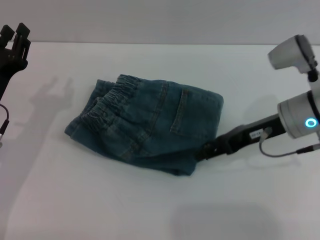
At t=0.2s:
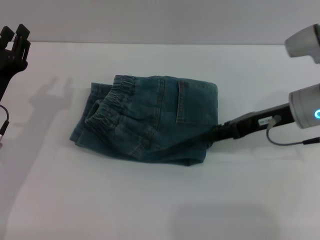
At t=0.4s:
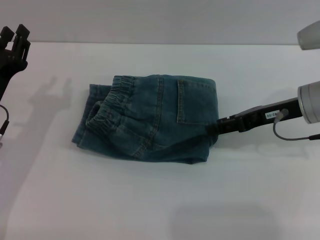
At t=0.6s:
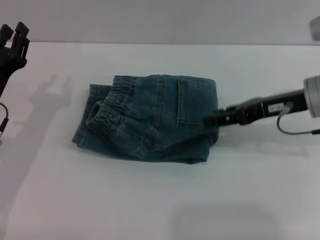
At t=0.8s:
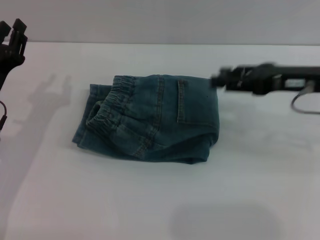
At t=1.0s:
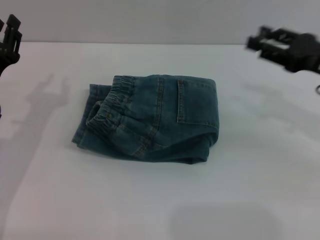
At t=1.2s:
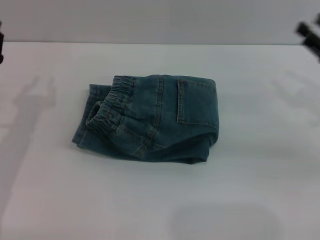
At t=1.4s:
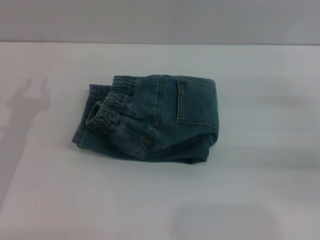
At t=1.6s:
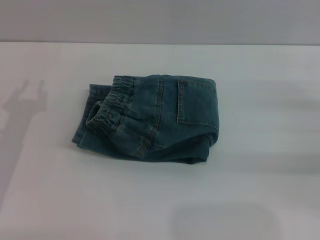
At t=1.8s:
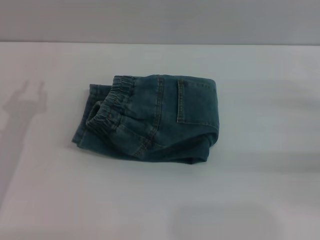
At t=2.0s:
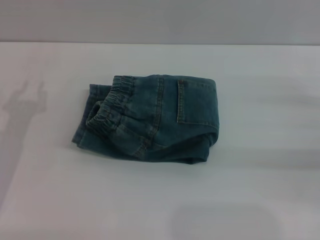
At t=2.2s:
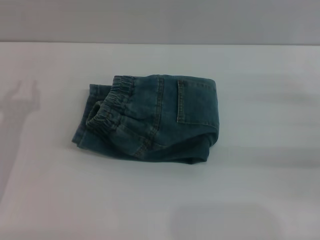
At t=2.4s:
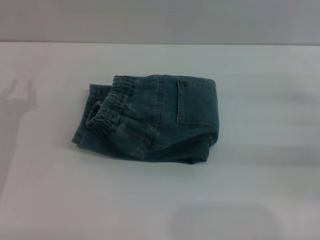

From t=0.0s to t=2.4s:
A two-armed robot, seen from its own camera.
From t=0.0s to t=1.2s: The right gripper shifts some 10 cm to the right.

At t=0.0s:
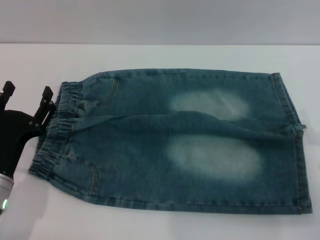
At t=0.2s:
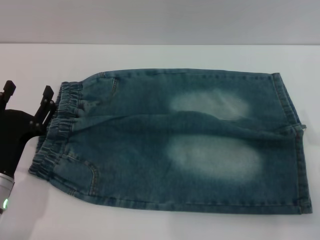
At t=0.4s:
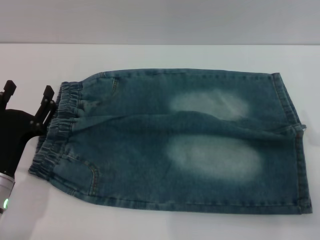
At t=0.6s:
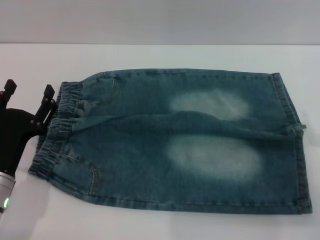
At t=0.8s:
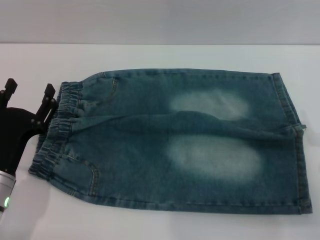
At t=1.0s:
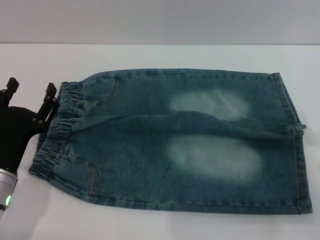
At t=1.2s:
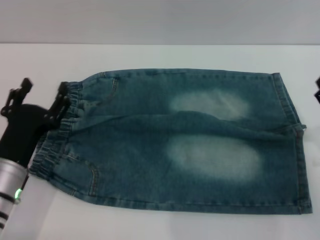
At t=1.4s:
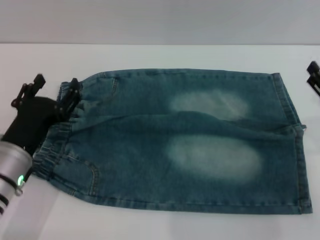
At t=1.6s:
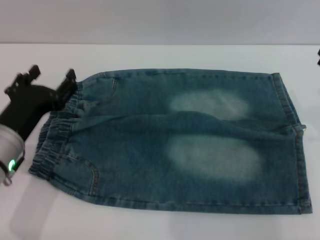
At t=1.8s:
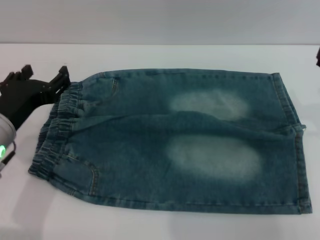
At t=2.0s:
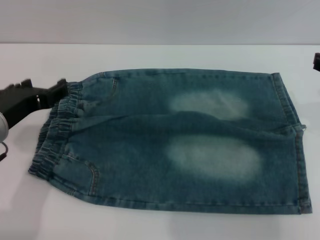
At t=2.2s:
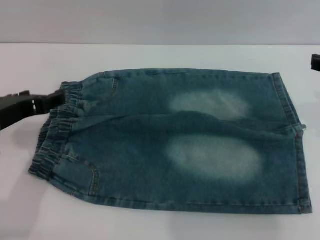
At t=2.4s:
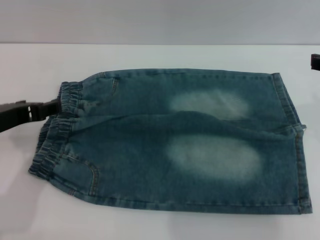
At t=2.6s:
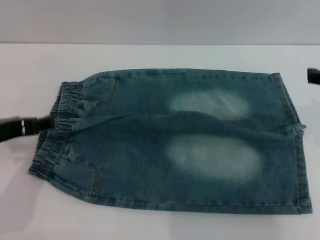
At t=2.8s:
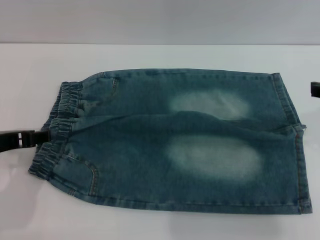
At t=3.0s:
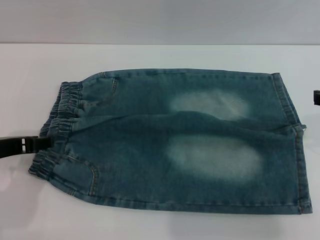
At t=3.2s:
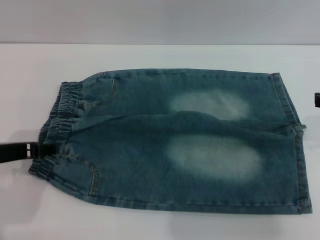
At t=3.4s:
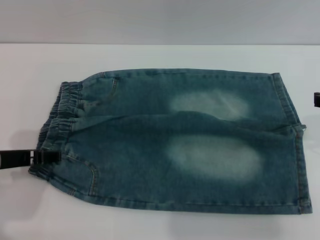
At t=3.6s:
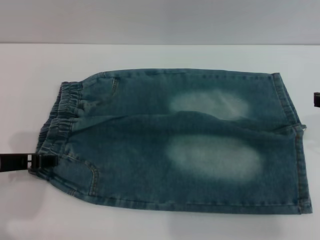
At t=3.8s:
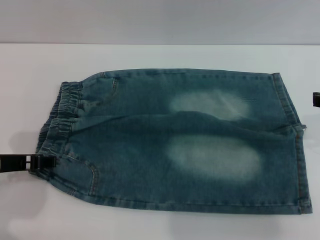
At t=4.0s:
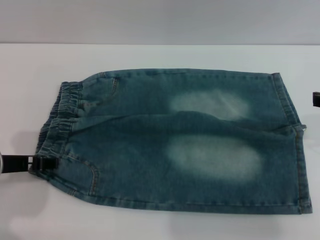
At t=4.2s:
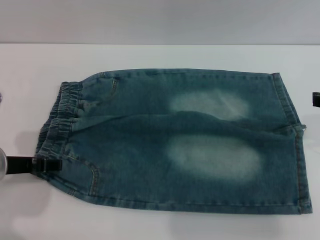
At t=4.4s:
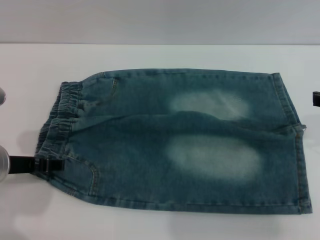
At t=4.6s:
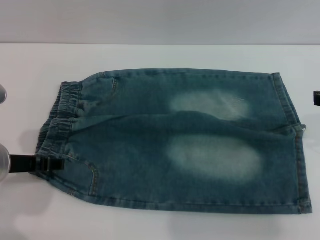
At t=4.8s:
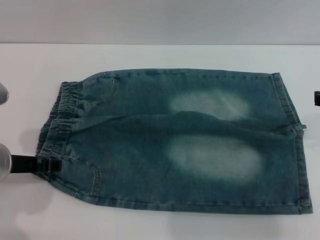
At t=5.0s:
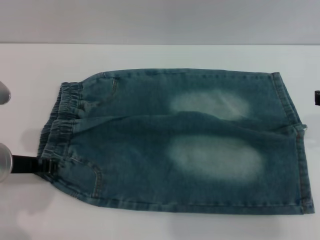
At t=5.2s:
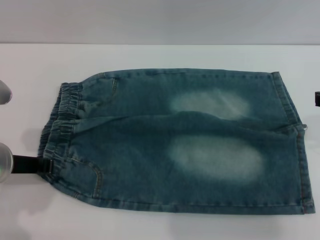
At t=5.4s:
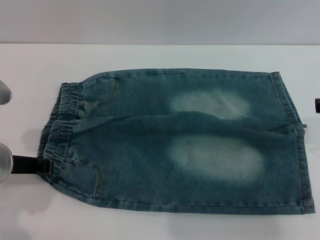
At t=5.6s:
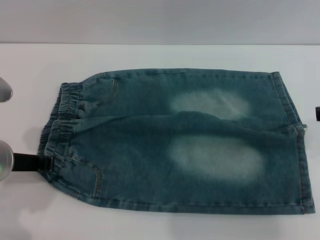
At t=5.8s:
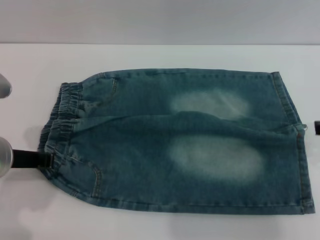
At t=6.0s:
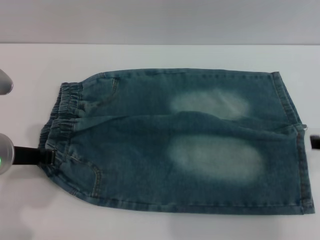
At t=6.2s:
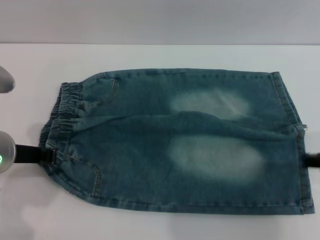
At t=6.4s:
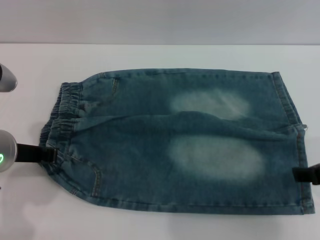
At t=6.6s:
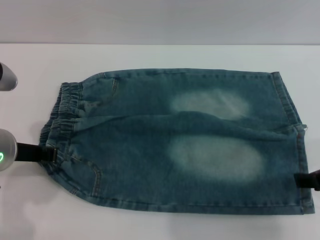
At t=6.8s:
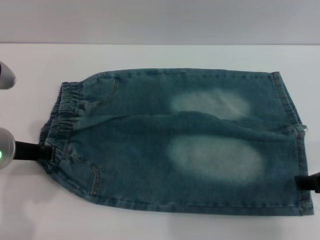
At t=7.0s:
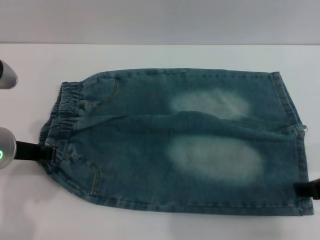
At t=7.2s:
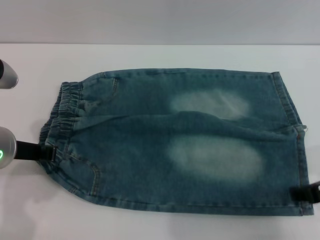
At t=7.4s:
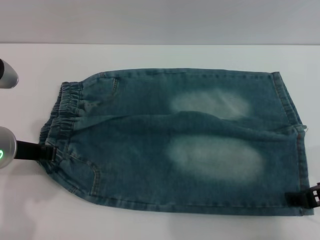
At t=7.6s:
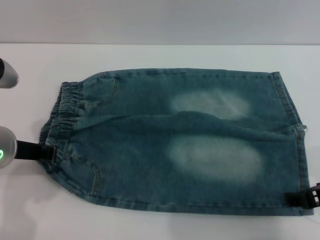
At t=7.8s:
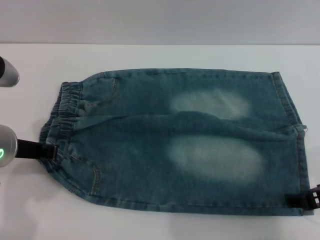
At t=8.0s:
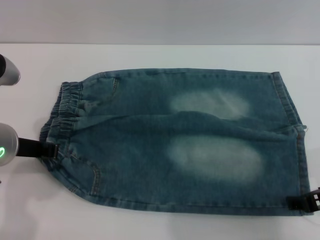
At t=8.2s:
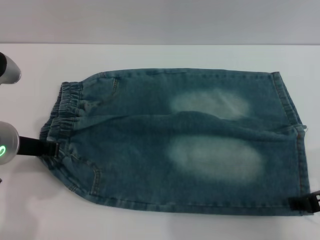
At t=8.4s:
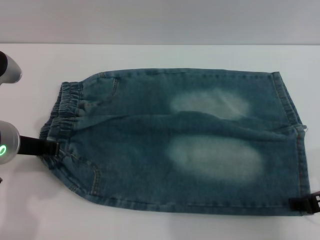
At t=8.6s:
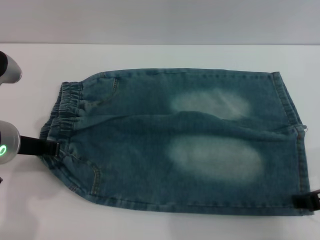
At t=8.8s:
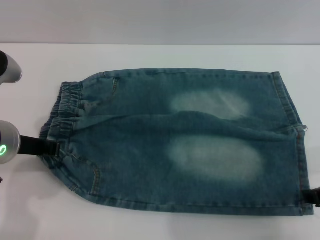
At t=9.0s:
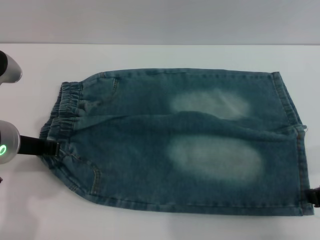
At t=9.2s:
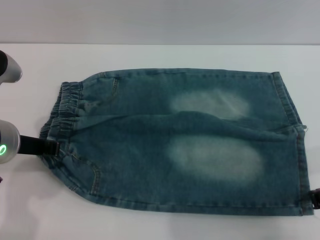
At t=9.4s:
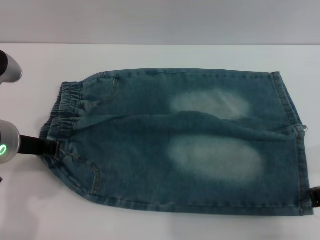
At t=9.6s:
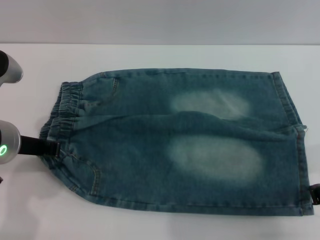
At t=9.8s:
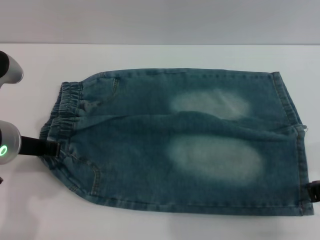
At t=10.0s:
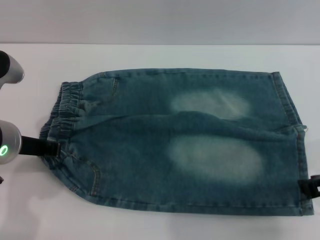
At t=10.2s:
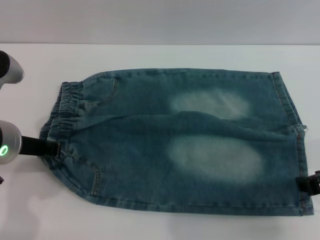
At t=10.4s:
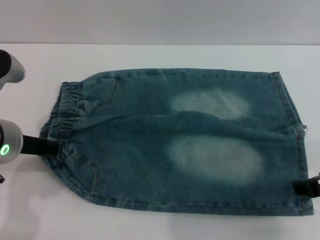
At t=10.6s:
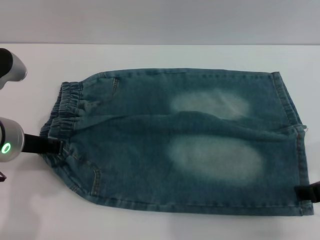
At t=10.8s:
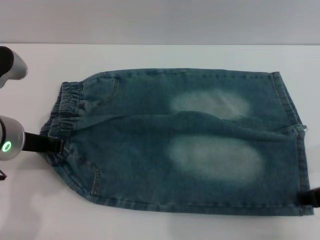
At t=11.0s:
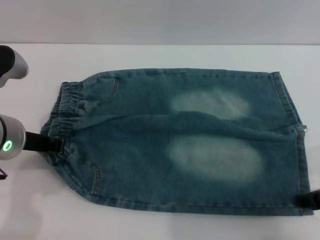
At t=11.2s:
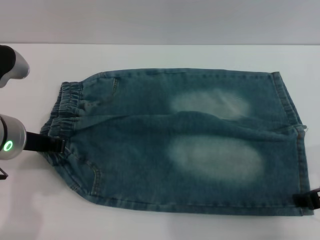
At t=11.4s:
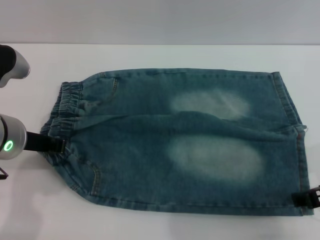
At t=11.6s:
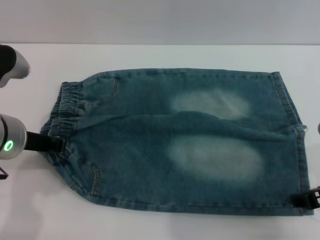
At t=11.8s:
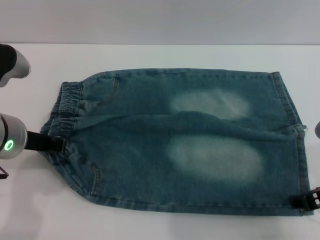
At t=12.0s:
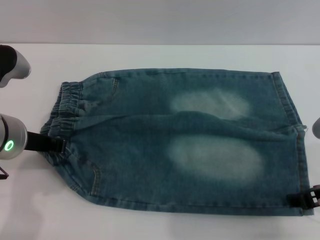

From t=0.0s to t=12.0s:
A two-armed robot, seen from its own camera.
From t=0.0s to t=1.6s: Both grippers travel together upward, approximately 10 cm.
From t=1.6s to t=3.0s: The left gripper is displaced upward by about 5 cm.
From t=3.0s to t=4.4s: The grippers make only small movements.
From t=4.4s to t=6.0s: The left gripper closes its fingers.
From t=6.0s to t=7.6s: The right gripper shifts by about 5 cm.
From t=7.6s to t=9.0s: The grippers make only small movements.
From t=10.4s to t=12.0s: The grippers move only a little.

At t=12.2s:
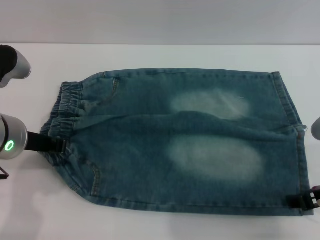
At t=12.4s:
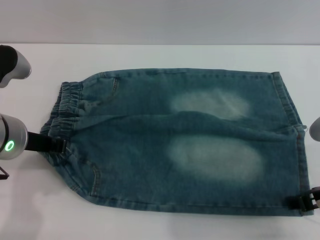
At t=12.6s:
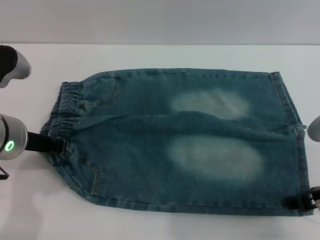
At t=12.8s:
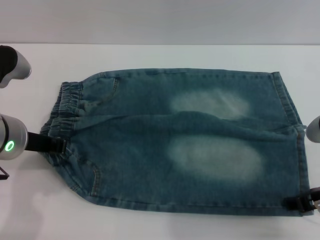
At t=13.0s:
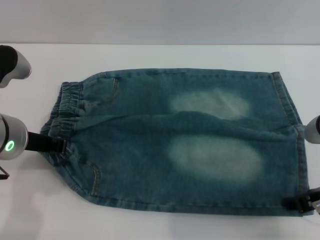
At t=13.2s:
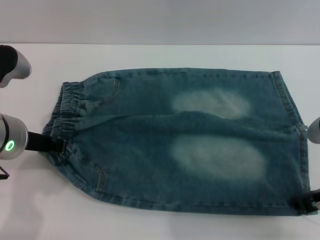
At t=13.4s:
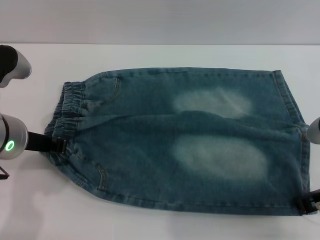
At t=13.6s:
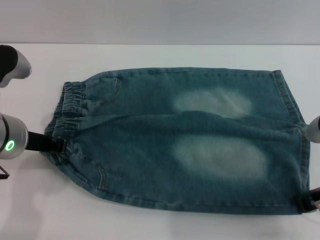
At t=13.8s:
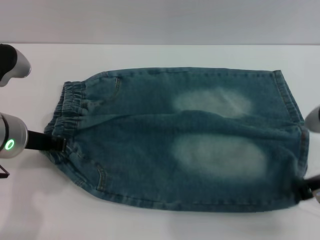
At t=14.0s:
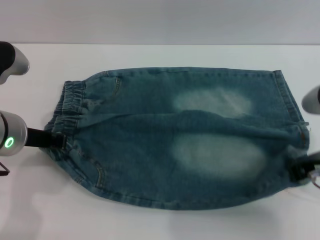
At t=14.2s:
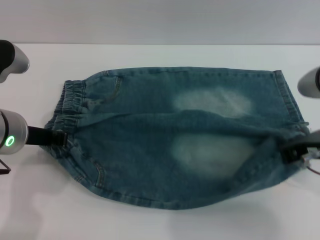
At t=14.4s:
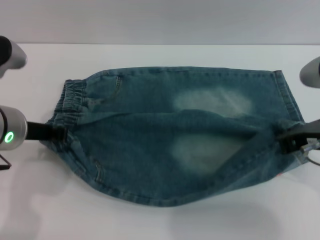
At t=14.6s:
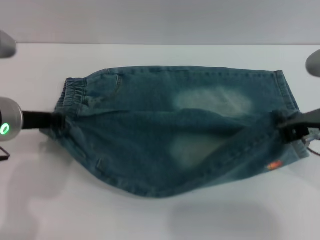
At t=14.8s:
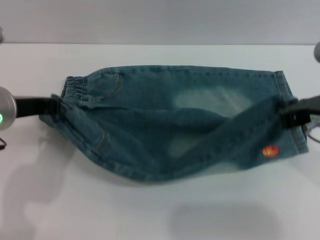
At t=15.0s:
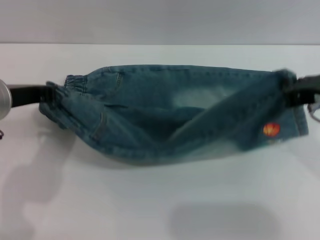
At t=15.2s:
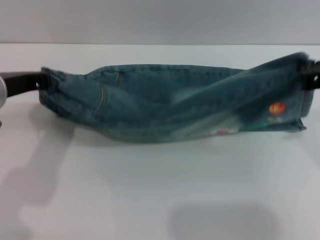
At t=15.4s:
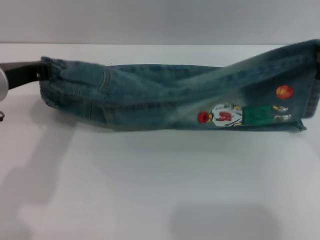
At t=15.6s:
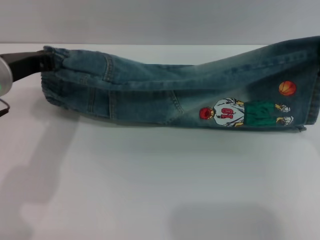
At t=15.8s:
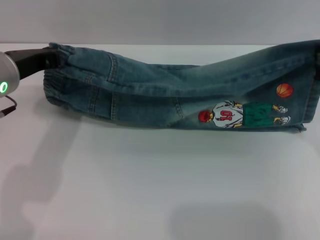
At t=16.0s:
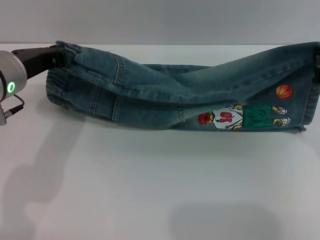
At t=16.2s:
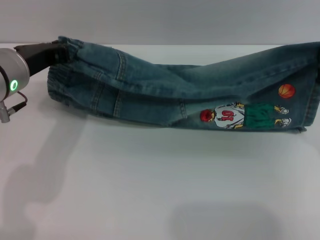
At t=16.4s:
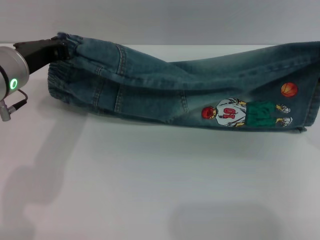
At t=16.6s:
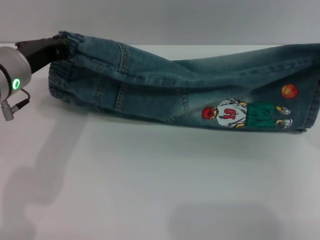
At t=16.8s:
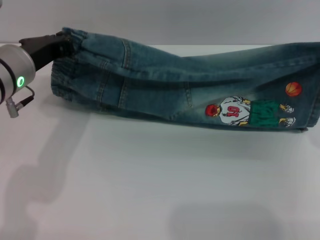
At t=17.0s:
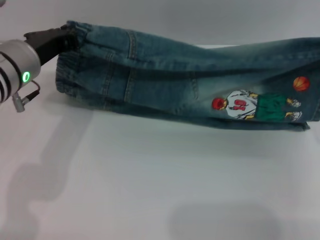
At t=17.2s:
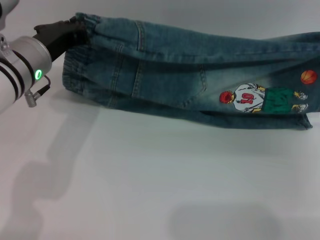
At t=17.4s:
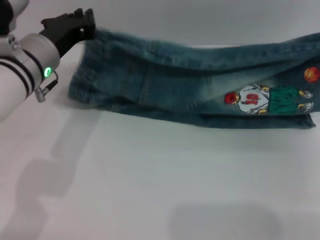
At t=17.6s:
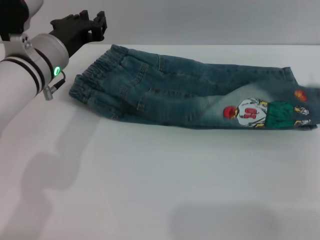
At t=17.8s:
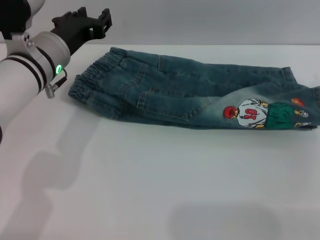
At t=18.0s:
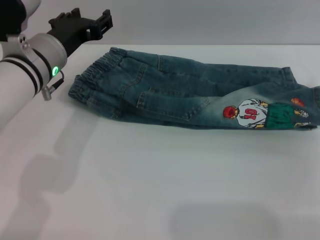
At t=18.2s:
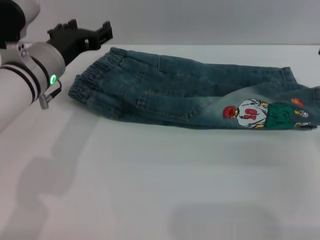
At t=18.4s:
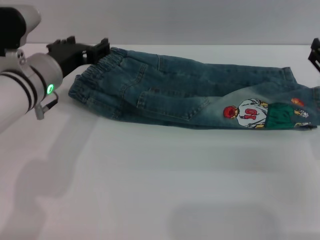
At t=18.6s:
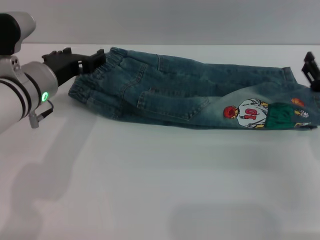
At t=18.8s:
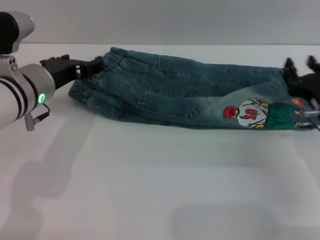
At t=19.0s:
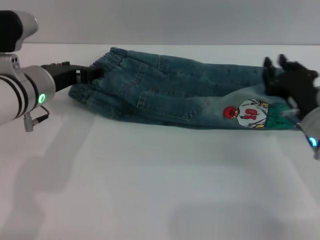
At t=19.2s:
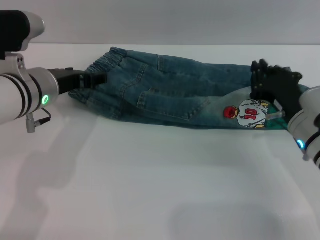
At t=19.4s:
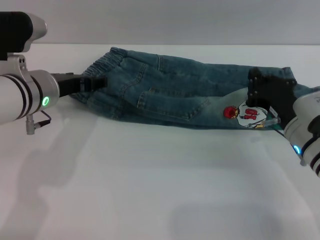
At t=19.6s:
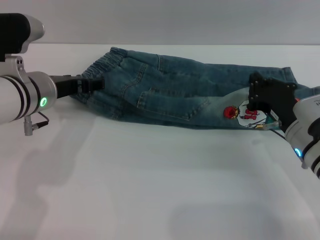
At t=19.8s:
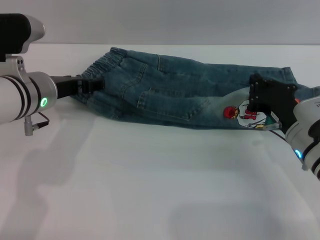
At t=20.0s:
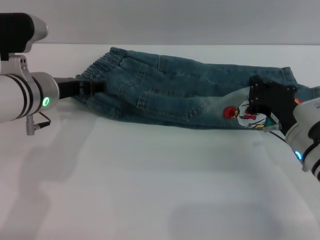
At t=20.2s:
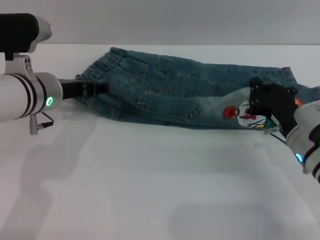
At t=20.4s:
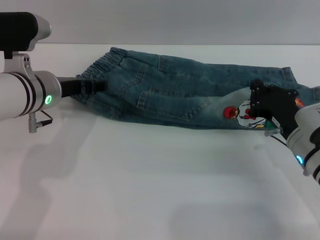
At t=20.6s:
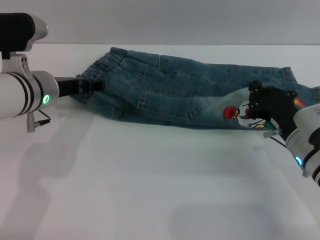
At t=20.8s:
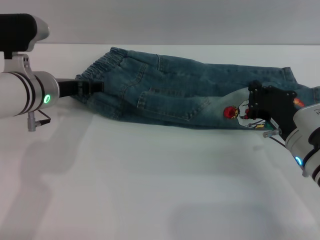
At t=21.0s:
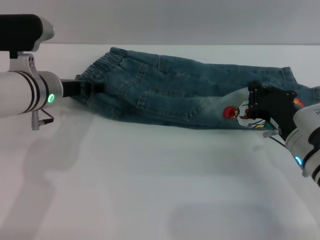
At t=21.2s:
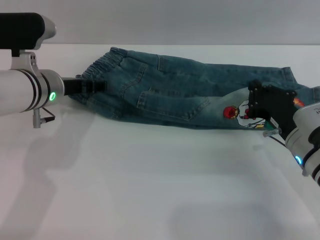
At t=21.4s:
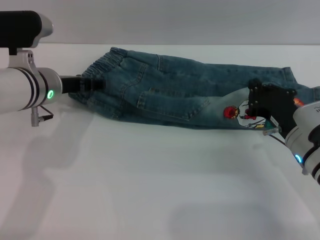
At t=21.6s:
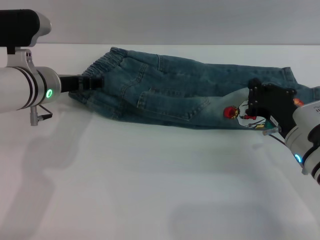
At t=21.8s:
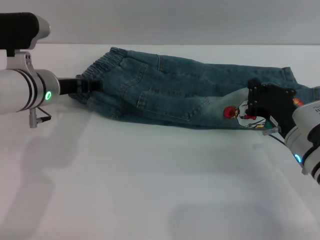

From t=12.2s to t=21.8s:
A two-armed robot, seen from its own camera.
Step, from t=12.2s to t=17.8s: Fold the bottom of the pants upward with both grippers.
From t=12.2s to t=13.8s: The right gripper closes its fingers.
From t=13.8s to t=15.4s: The right gripper is displaced upward by about 5 cm.
From t=15.4s to t=17.0s: The right gripper shifts approximately 5 cm downward.
From t=17.0s to t=18.6s: The right gripper travels downward by approximately 5 cm, and opens, while the left gripper opens its fingers.
From t=18.6s to t=20.2s: The right gripper is displaced to the left by about 5 cm, and closes up.
From t=20.2s to t=21.8s: There are only small adjustments of the grippers.
